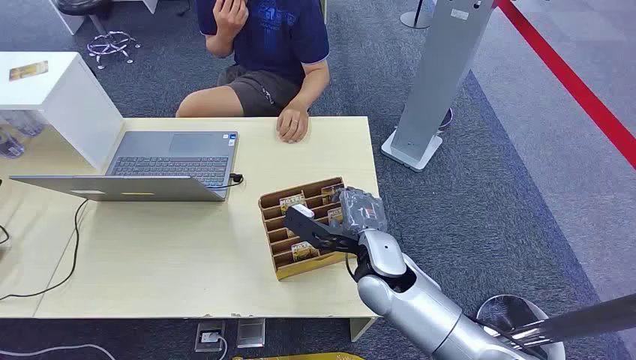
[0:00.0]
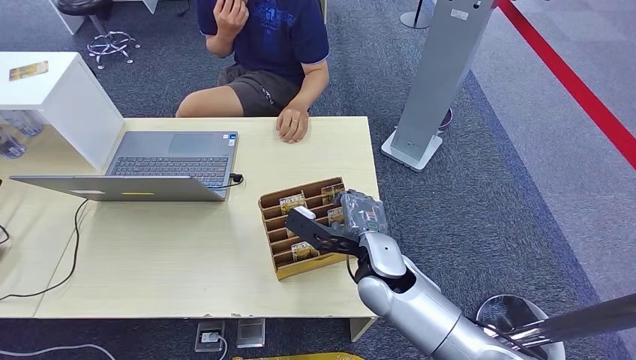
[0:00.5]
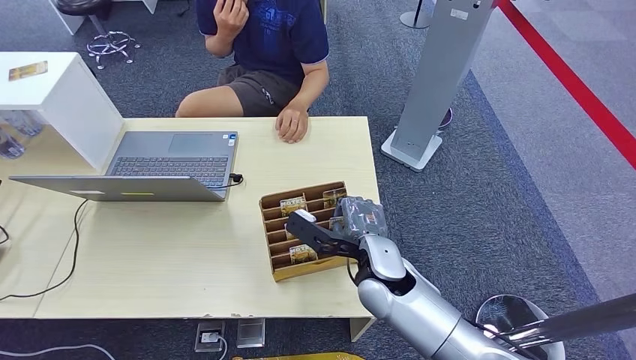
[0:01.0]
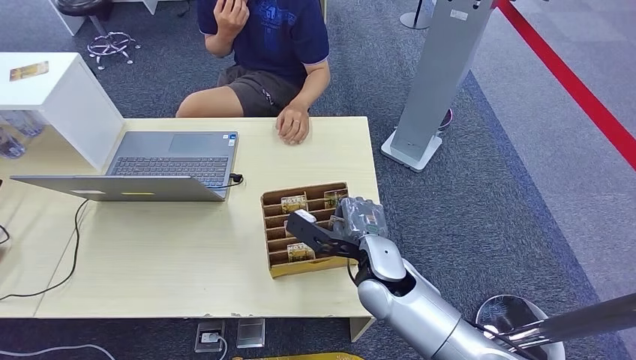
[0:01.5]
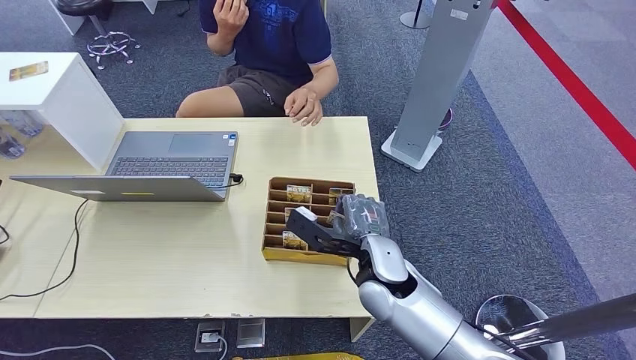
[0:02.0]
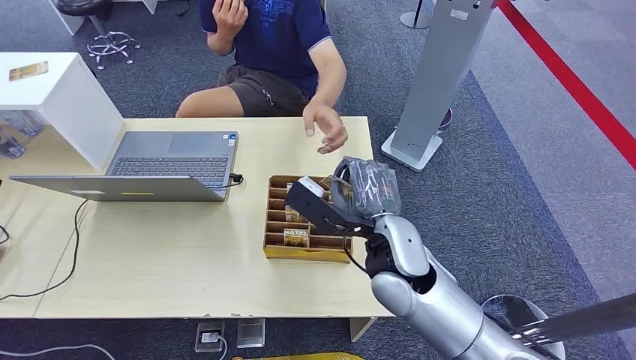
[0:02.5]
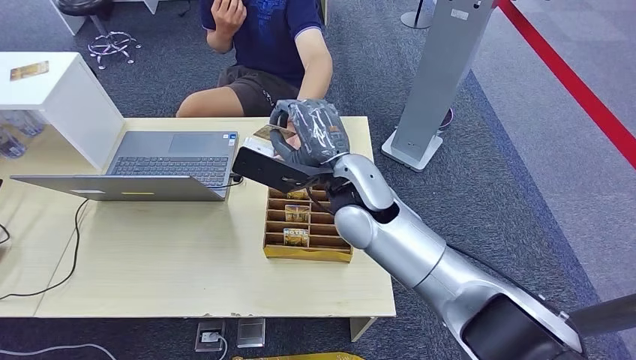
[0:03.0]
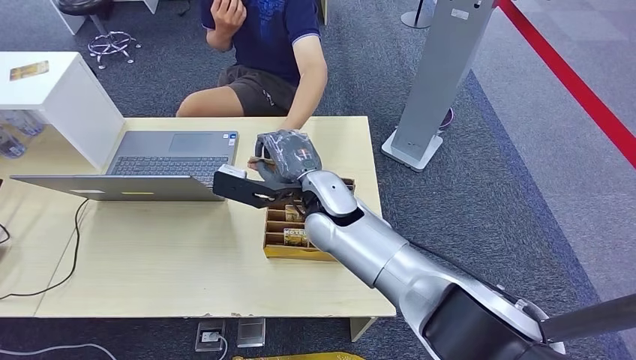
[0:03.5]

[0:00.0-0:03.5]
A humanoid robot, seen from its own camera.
Step, 0:00.0 to 0:02.0: Pick up the room card from the card holder.
Step, 0:02.5 to 0:03.5: Hand the room card to the target.
0:02.0 to 0:03.5: The right hand goes approximately 15 cm to the left, upward and forward.

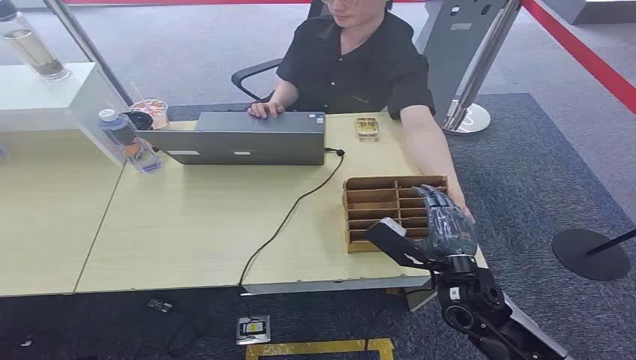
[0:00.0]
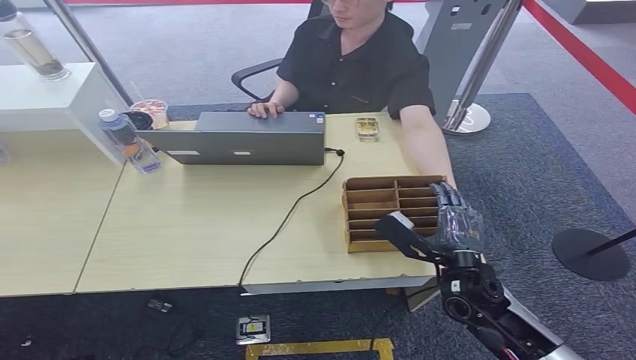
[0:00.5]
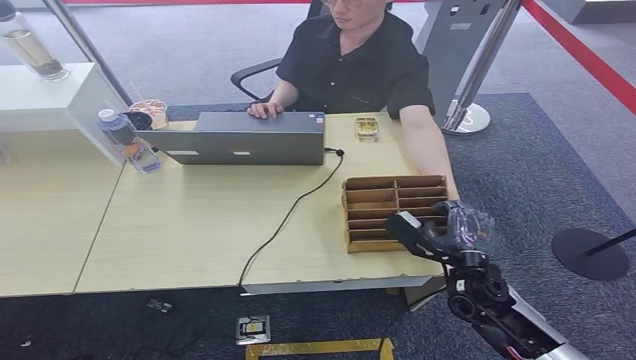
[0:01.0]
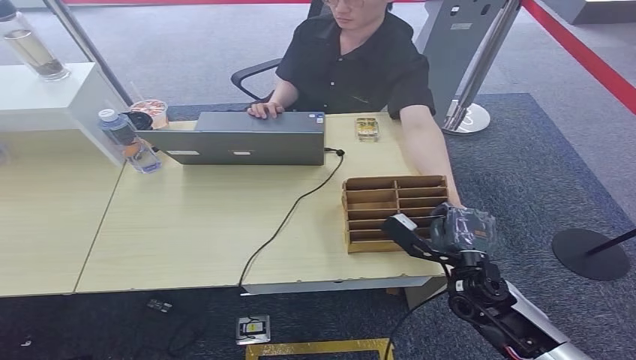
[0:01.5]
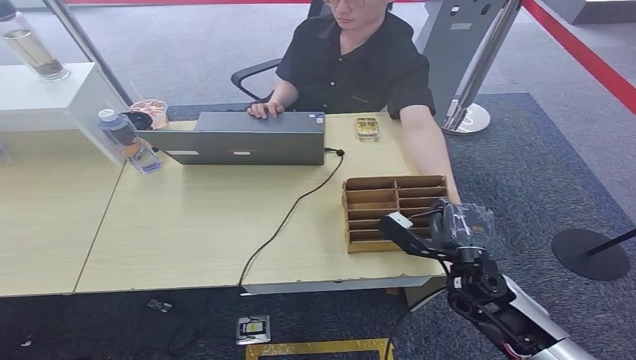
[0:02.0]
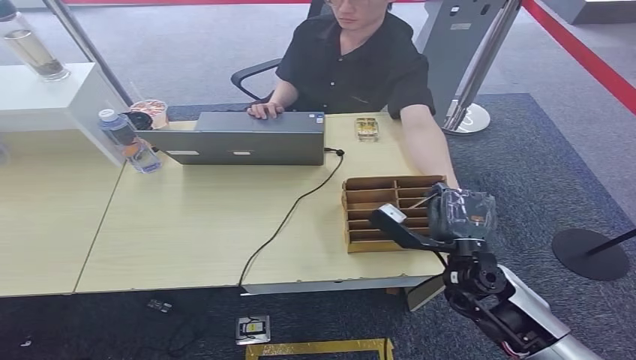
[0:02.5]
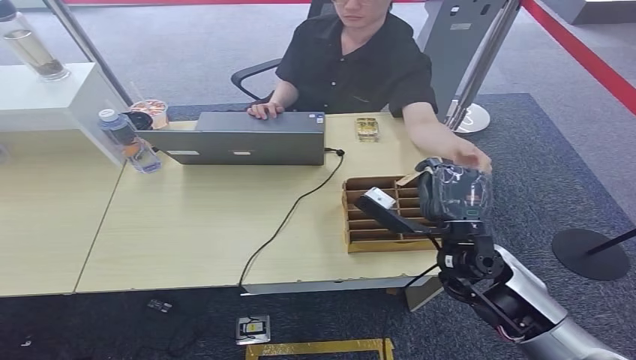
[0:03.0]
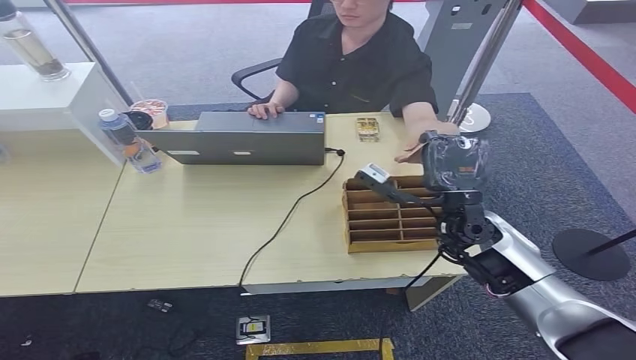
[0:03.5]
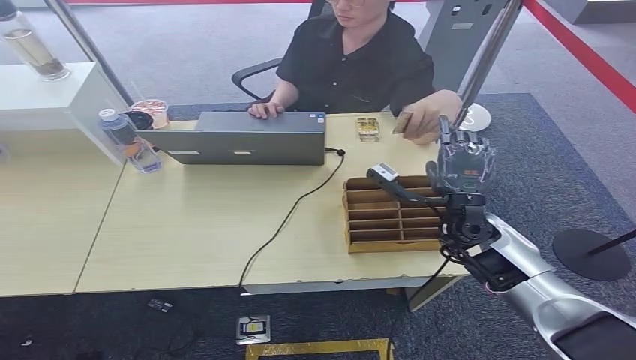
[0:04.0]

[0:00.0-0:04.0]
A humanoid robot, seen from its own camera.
Step, 0:00.0 to 0:02.5: Pick up the room card from the card holder.
Step, 0:03.0 to 0:04.0: Hand the room card to the target.
0:02.0 to 0:04.0: The right hand moves forward and upward, approximately 10 cm.
